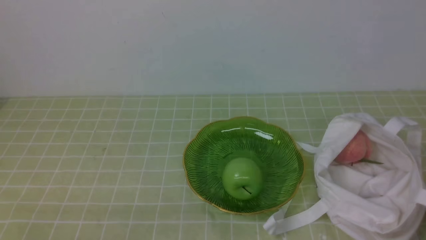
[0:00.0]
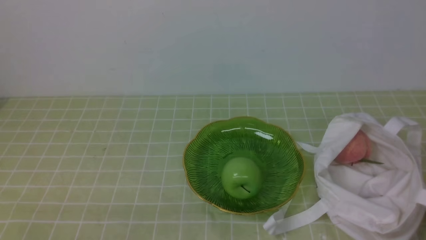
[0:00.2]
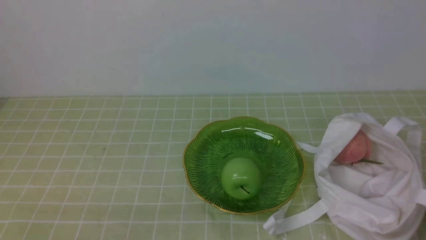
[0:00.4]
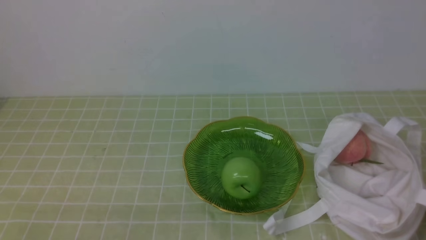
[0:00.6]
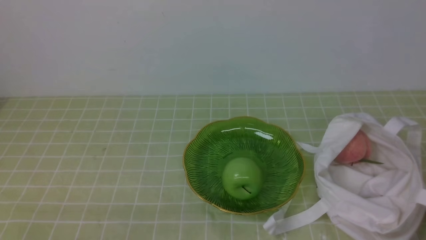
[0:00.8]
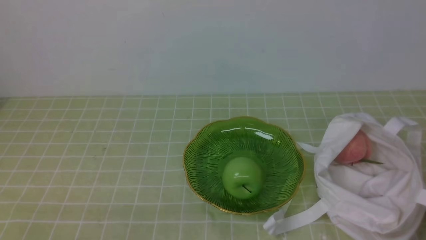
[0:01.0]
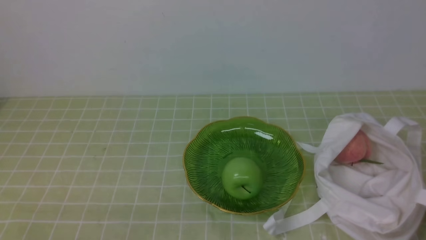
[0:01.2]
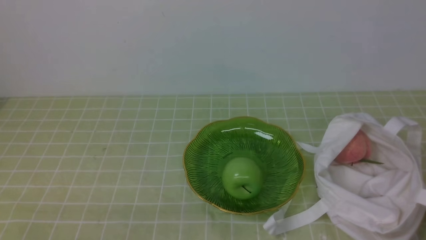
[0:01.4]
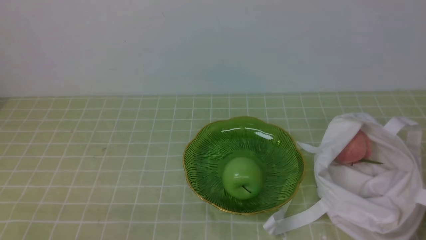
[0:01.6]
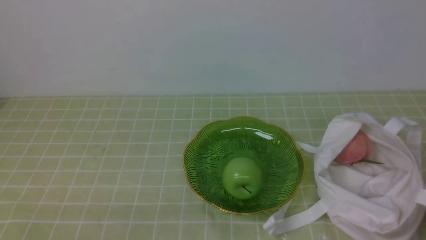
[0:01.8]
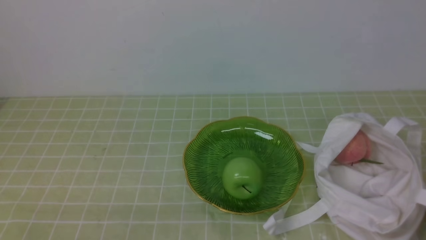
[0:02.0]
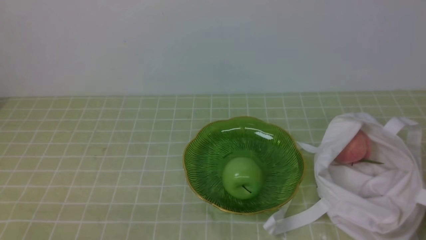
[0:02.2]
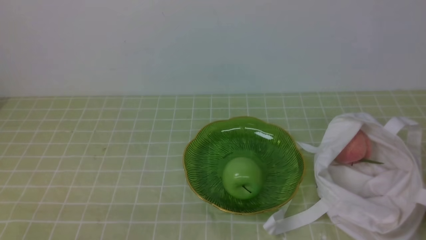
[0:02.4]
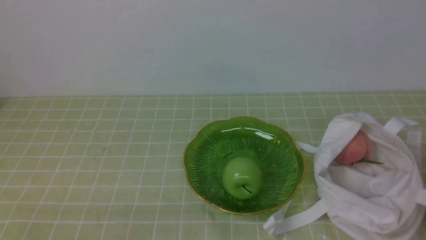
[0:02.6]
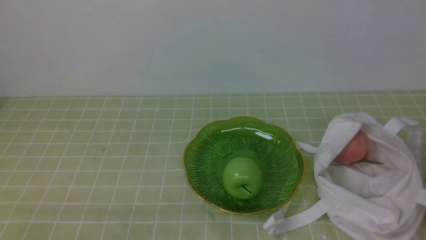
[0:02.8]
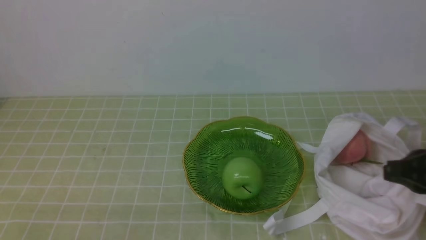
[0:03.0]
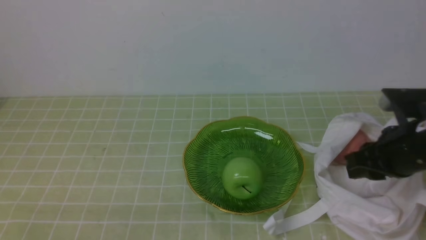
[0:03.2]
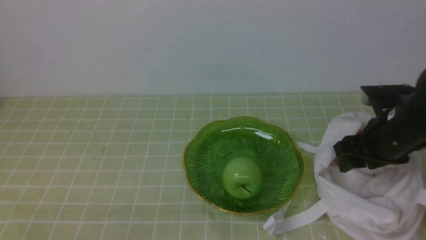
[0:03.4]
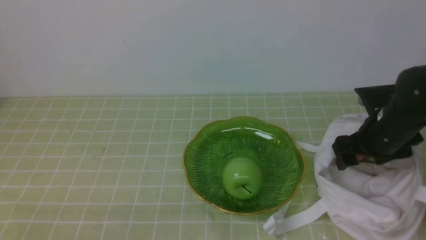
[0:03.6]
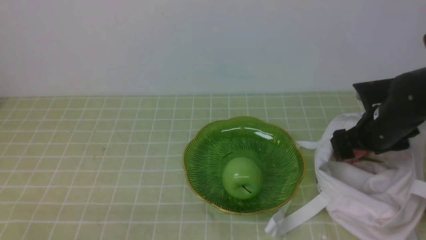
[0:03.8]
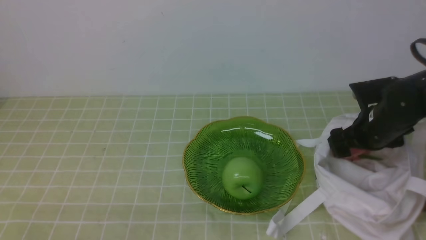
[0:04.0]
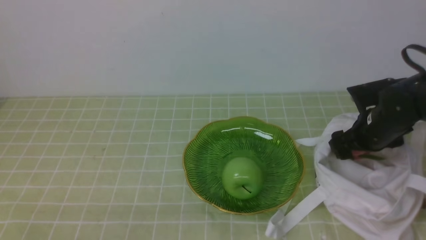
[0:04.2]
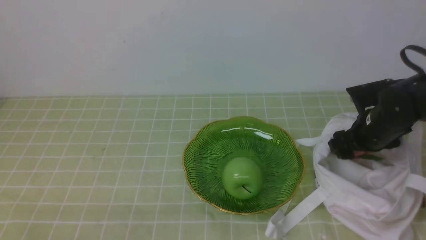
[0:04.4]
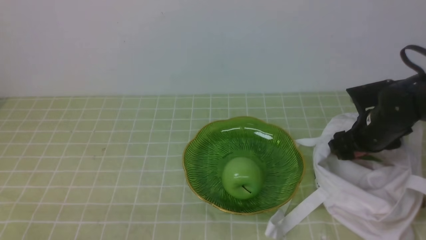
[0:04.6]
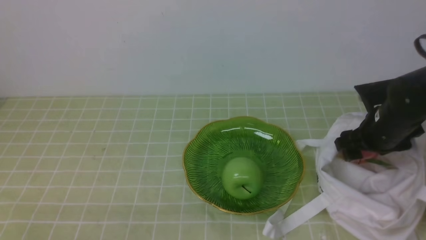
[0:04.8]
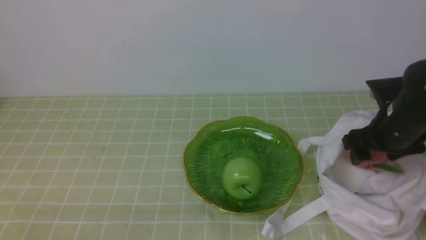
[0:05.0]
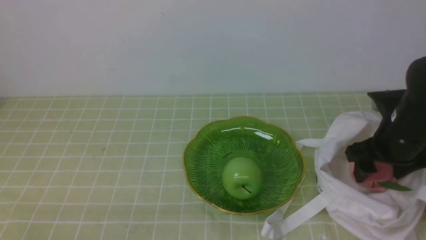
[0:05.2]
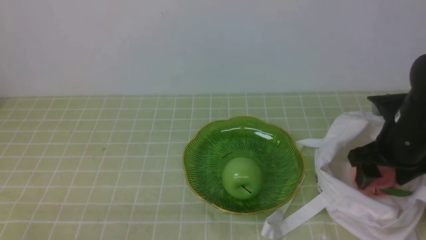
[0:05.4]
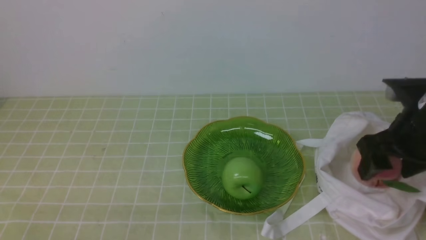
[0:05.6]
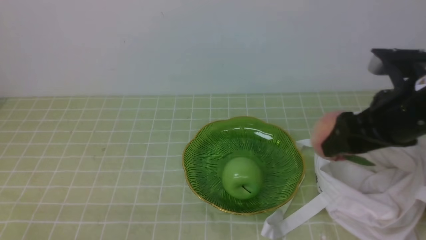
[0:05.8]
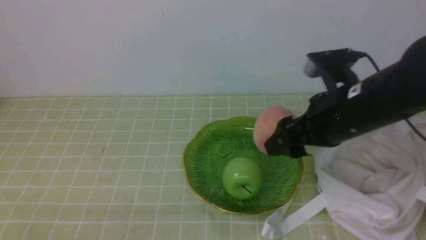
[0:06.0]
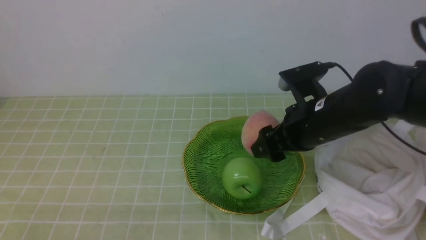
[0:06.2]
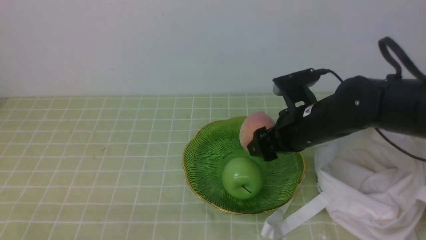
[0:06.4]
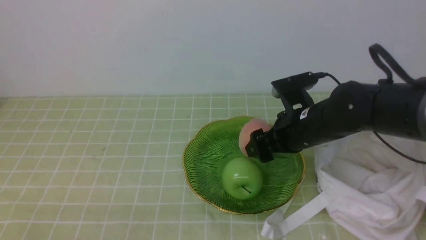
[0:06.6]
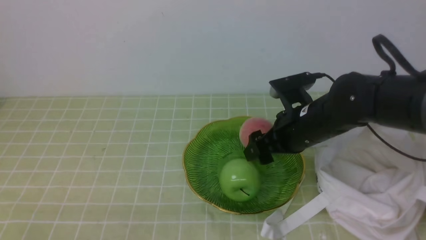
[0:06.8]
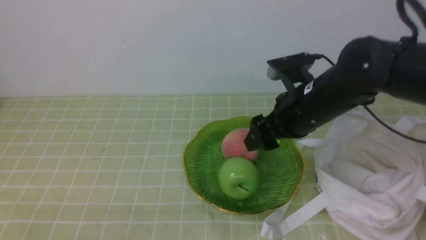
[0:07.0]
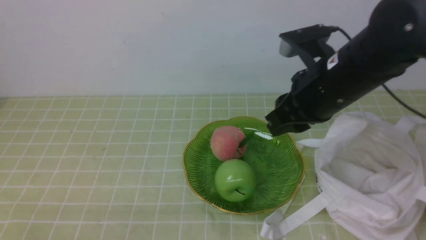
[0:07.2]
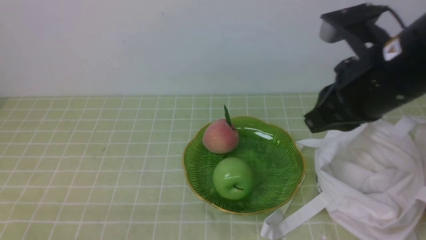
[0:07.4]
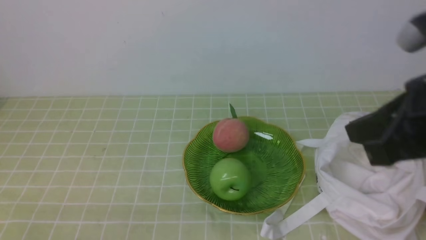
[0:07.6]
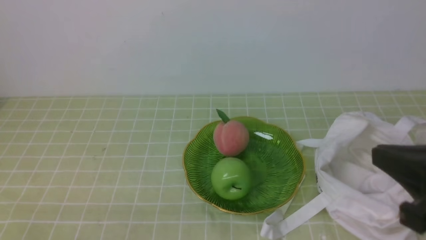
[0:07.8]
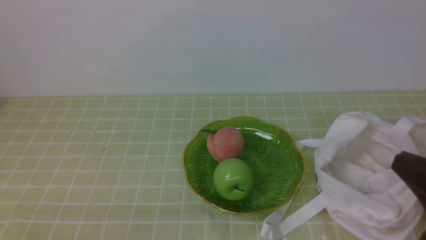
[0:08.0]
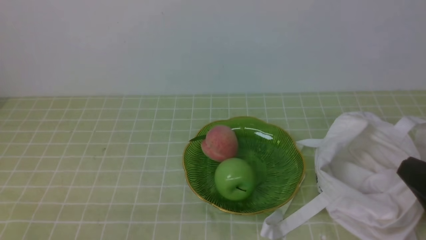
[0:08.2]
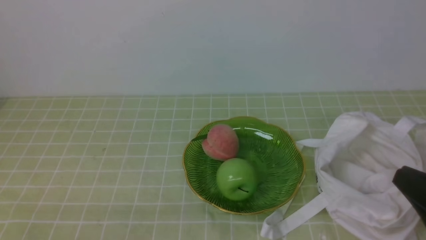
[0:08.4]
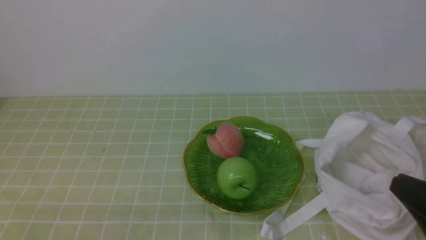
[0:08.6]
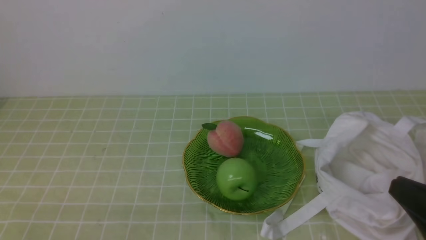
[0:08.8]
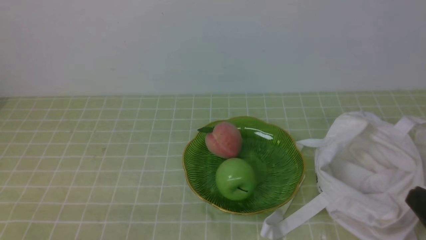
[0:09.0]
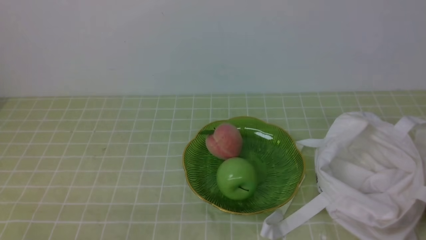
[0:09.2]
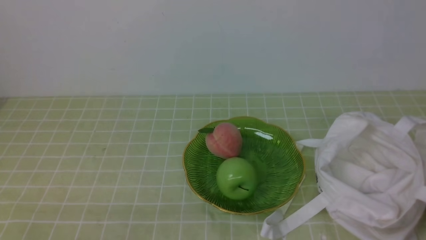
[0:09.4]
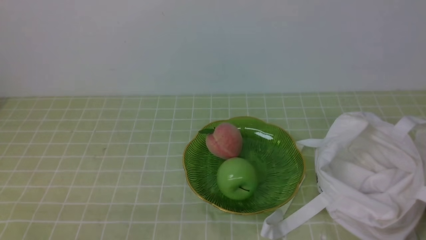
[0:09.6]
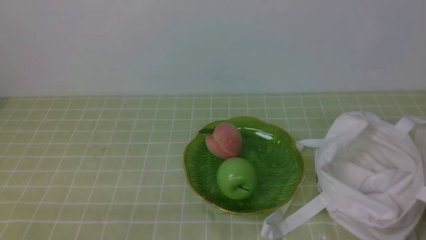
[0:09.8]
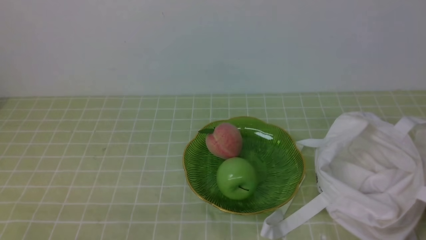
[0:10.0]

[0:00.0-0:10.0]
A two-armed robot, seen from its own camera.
Step, 0:00.0 to 0:04.8: use the right arm to grab a peach from the bag.
Step, 0:05.0 to 0:06.8: use the right arm to put the peach into the empty plate on the left.
0:00.0 to 0:01.4: Both grippers stay about where they are.
0:02.8 to 0:04.2: The right gripper moves forward and downward, approximately 25 cm, and opens its fingers.
0:04.2 to 0:05.8: The right gripper is displaced upward, backward and to the left by about 15 cm.
0:05.8 to 0:07.2: The right gripper moves to the left, roughly 5 cm, goes downward and returns, about 10 cm each way, and closes up.
0:07.2 to 0:08.6: The right gripper travels backward and to the right by some 20 cm.
0:08.6 to 0:10.0: The right gripper is displaced downward by approximately 10 cm.

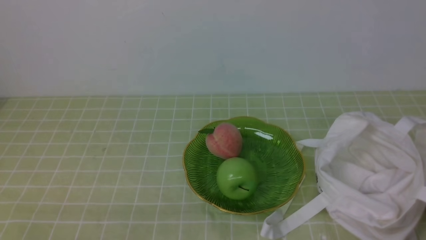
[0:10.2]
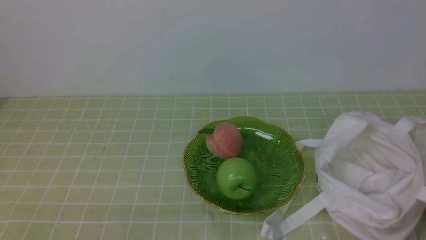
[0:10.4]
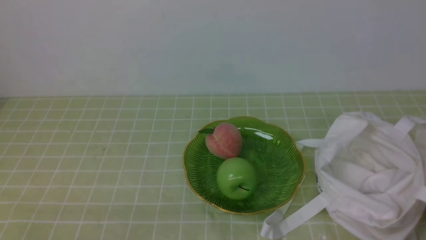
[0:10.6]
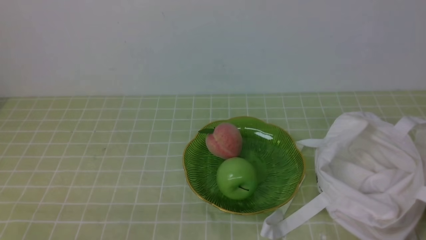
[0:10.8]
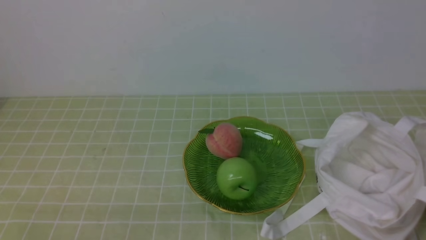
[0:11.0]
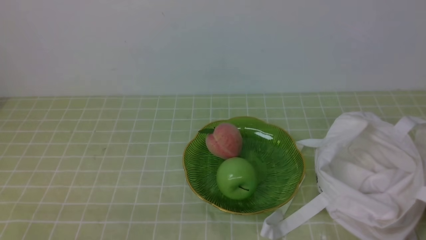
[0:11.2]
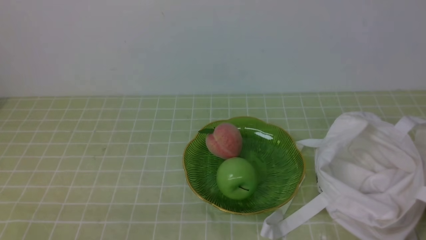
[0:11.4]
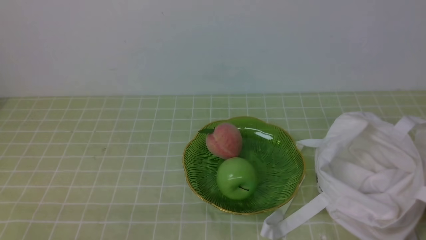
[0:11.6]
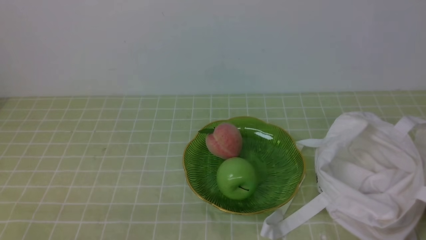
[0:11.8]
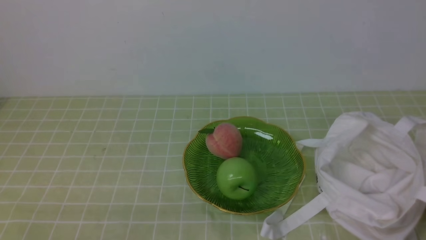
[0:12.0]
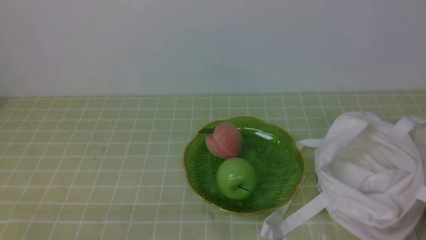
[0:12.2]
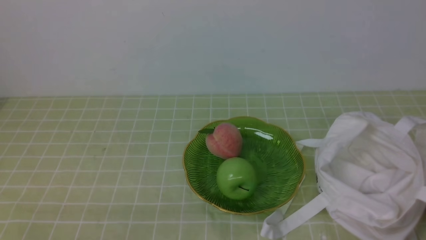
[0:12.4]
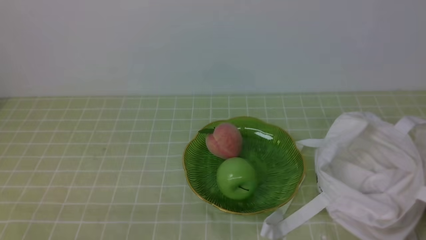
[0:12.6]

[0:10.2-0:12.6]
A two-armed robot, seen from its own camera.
0:10.2 to 0:12.6: Neither gripper changes place.

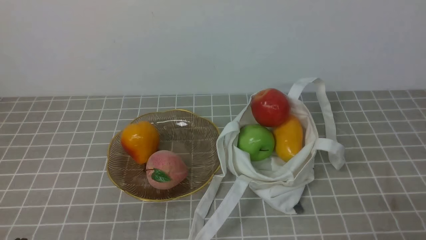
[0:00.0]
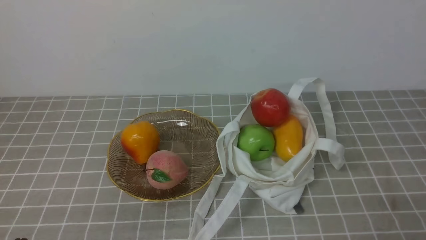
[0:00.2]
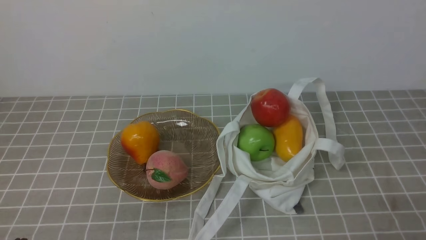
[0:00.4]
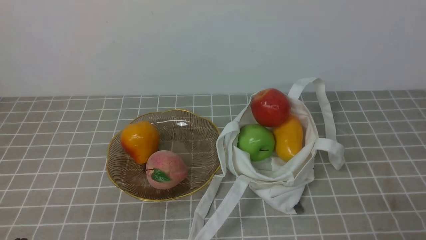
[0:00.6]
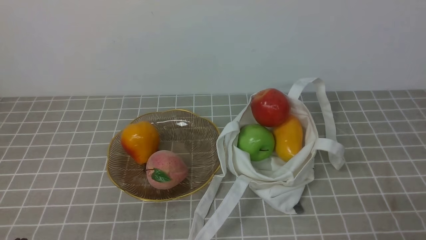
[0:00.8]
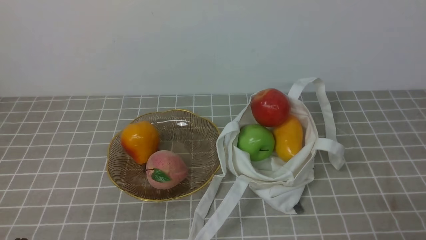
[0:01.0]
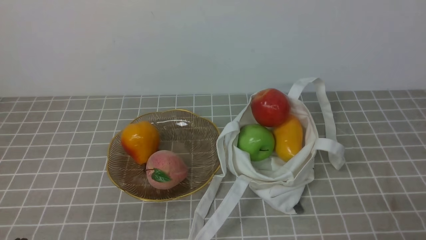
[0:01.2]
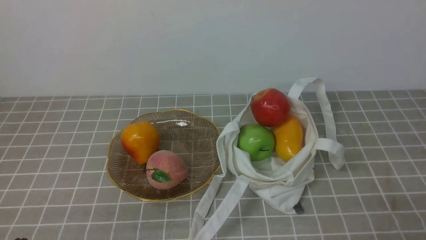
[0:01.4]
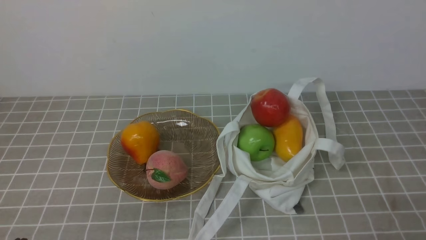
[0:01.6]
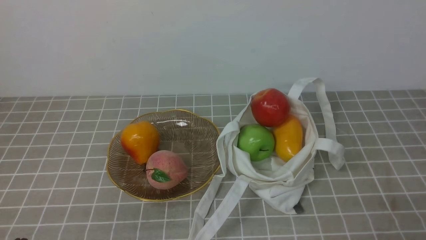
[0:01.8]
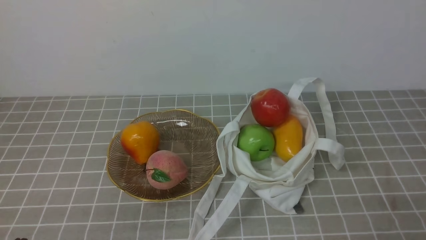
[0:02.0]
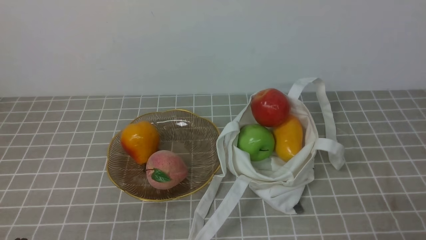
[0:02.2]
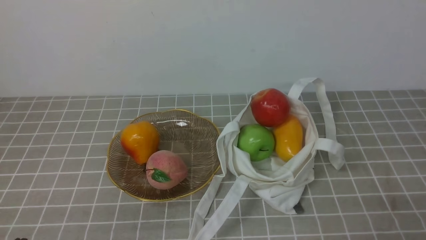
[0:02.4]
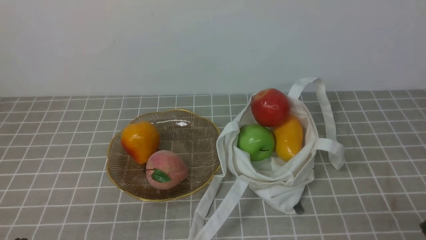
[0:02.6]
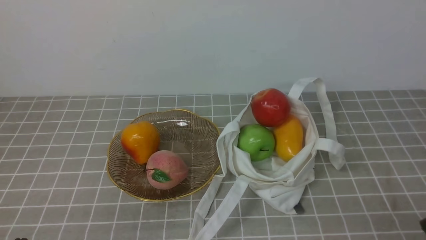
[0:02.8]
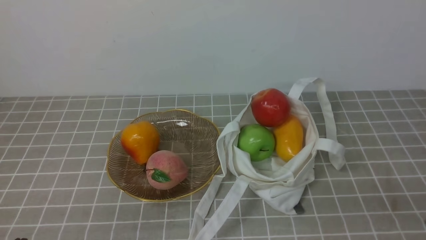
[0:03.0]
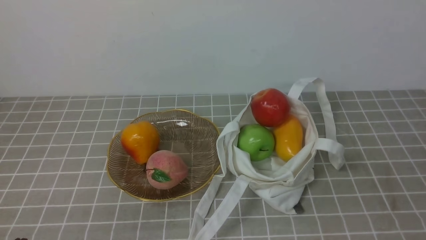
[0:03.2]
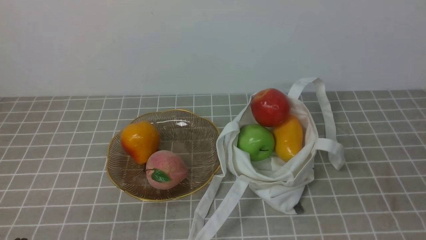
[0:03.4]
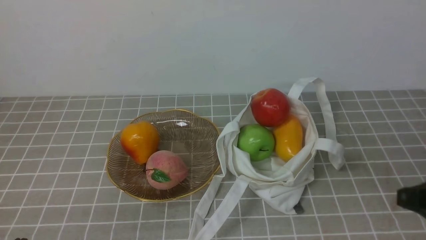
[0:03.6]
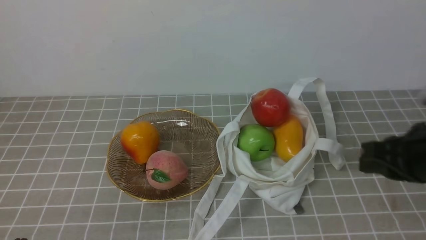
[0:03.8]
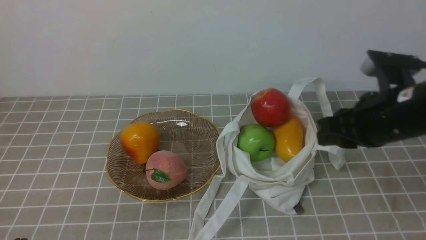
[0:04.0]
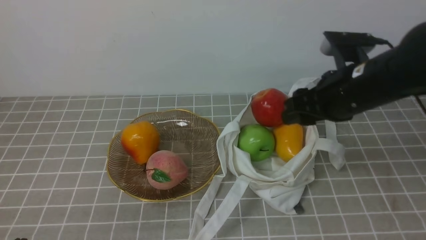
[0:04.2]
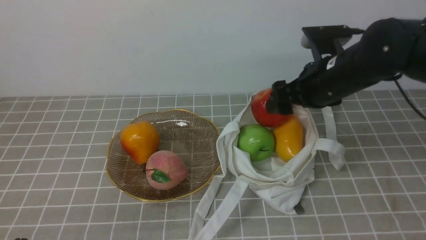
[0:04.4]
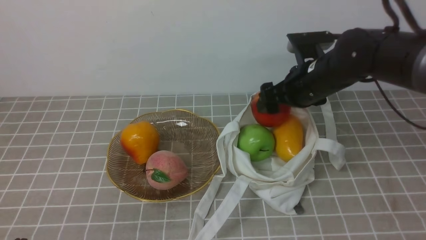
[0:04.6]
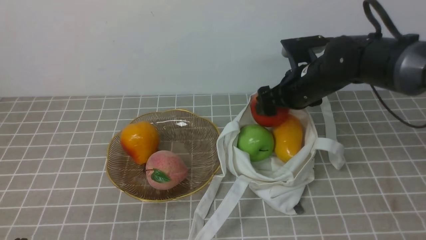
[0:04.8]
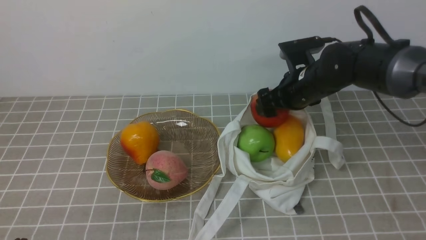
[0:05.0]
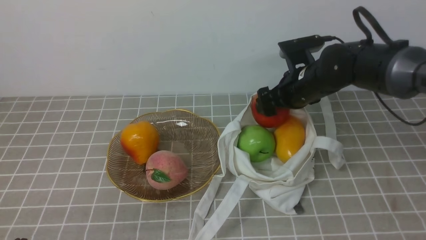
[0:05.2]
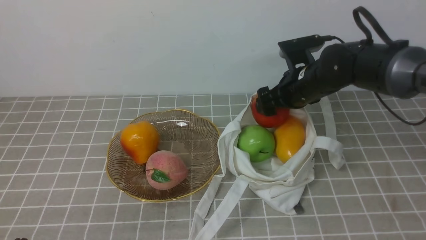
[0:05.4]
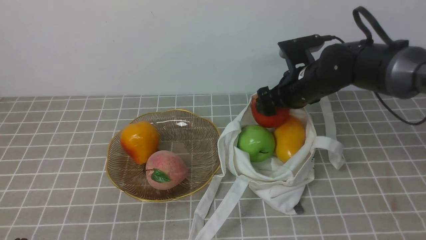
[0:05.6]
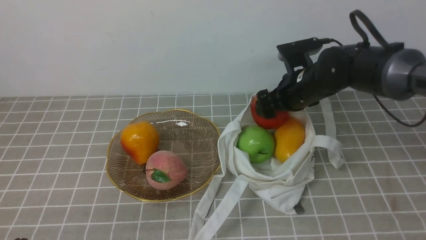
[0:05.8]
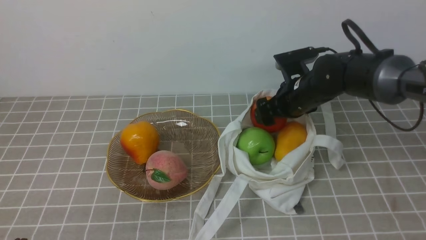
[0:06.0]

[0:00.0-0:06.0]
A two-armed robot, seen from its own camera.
Step, 0:00.0 to 0:05.8: use the right arm to grab an apple from the bag.
0:03.0 to 0:04.4: The right gripper goes approximately 30 cm forward, and opens up.
0:04.4 to 0:06.0: The right gripper is displaced downward and forward by about 10 cm.
